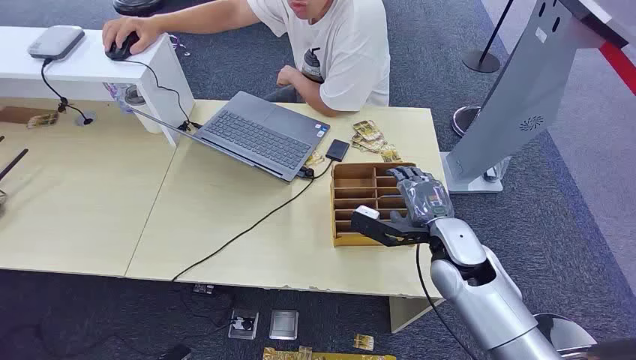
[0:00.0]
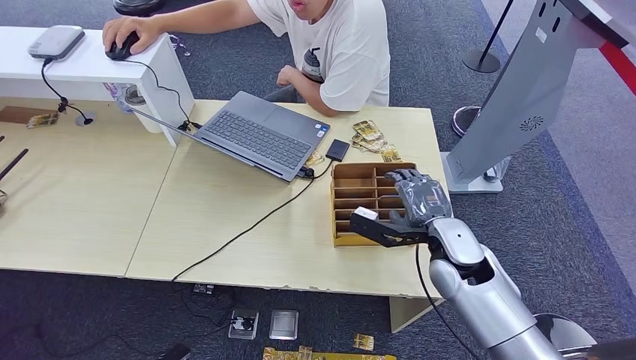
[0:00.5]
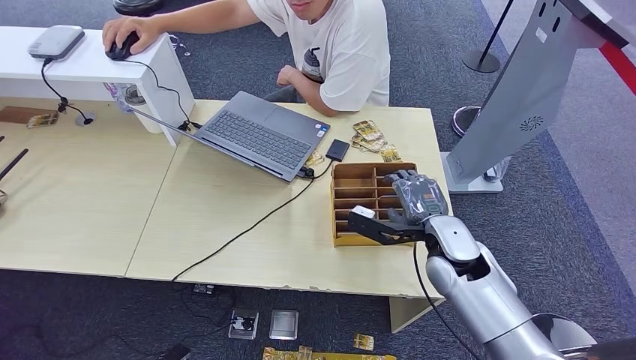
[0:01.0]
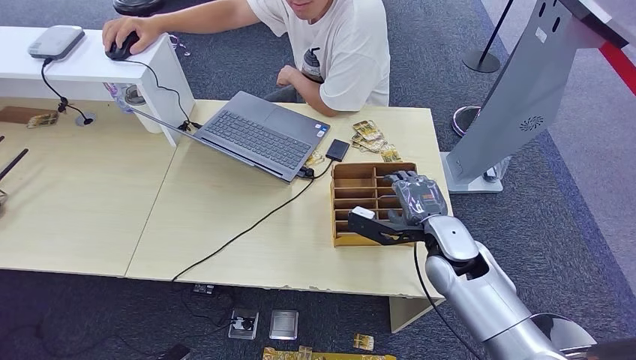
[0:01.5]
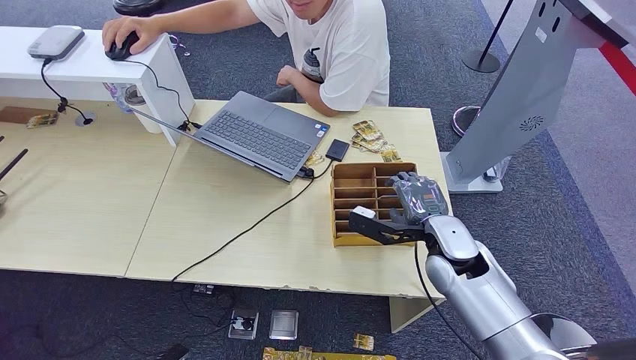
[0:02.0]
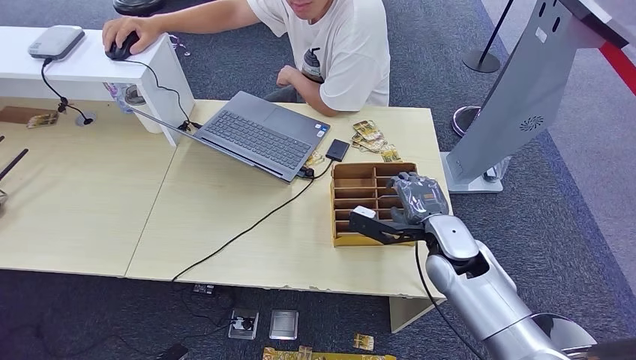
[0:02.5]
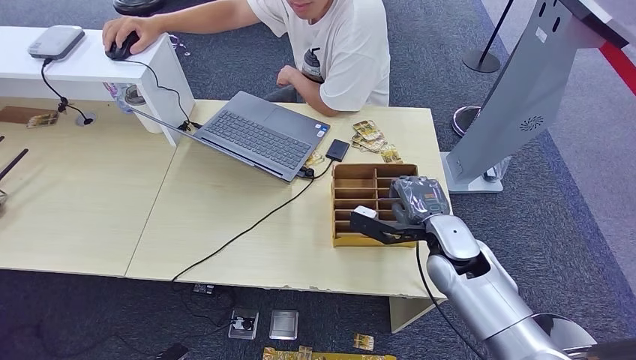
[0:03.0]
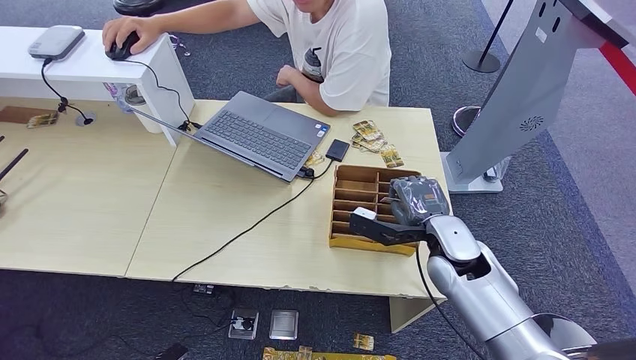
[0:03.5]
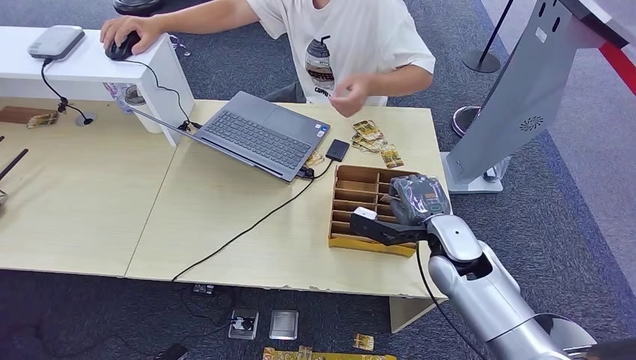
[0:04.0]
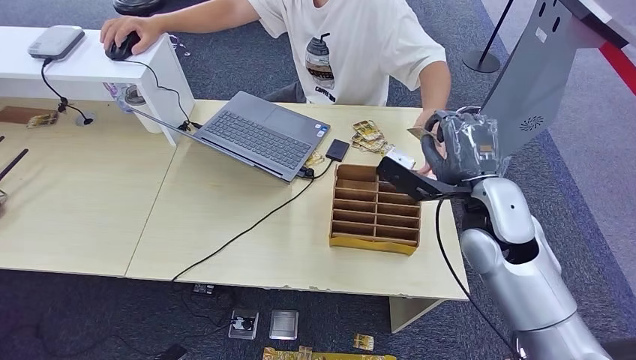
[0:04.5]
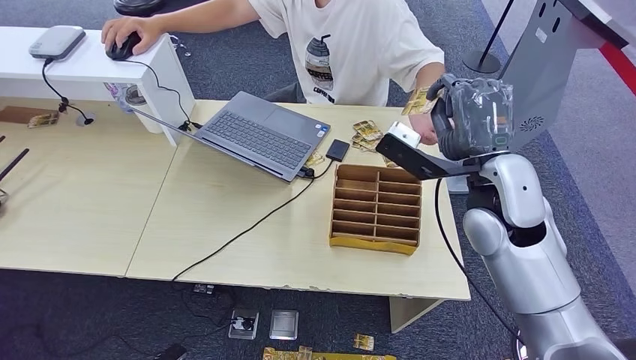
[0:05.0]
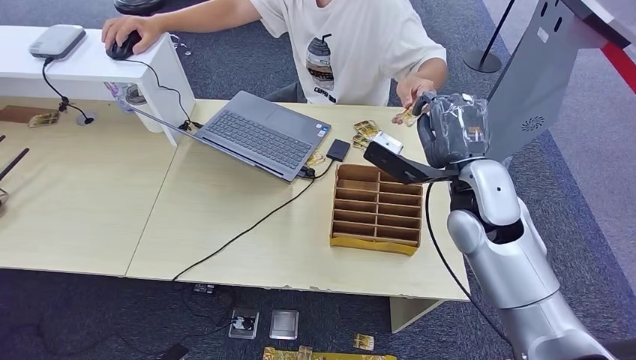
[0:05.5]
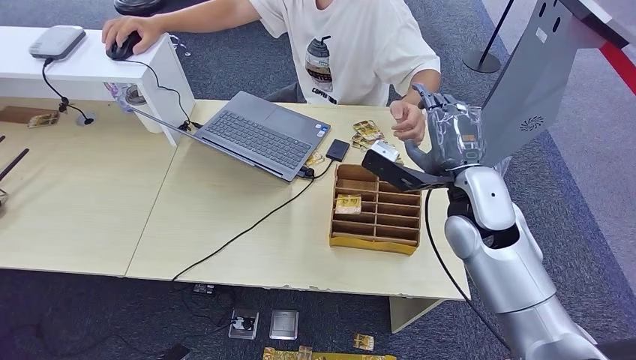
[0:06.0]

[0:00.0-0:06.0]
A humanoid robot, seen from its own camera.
Step, 0:00.0 to 0:04.0: Pick up the key card from the card box.
Step, 0:04.5 to 0:06.0: Hand the key card to the target.
0:02.0 to 0:04.0: Neither hand changes place.
0:04.0 to 0:06.0: The right hand travels upward by roughly 10 cm.
